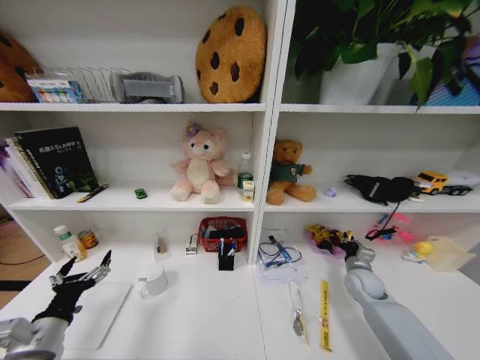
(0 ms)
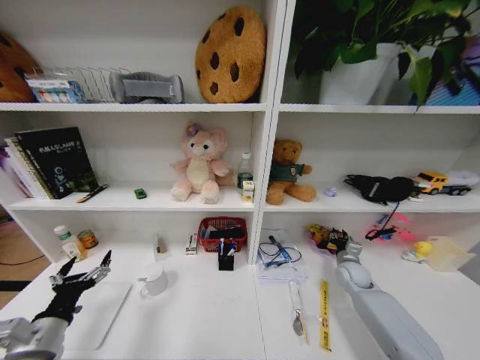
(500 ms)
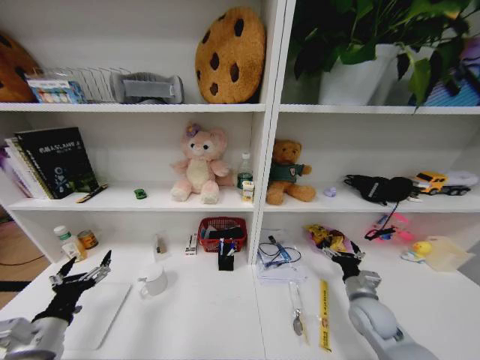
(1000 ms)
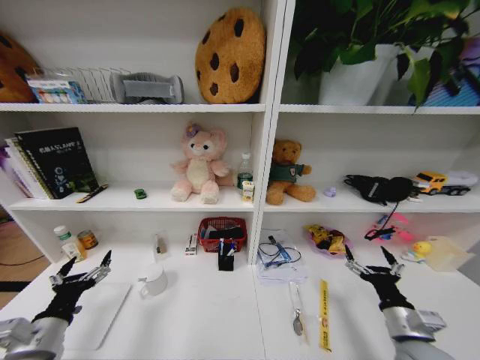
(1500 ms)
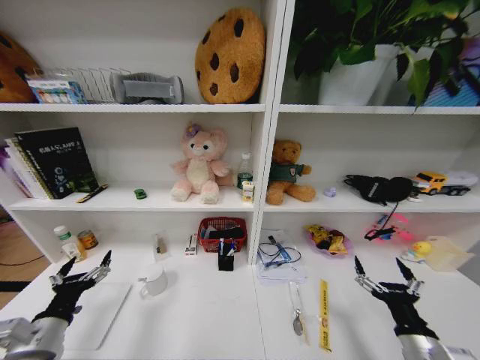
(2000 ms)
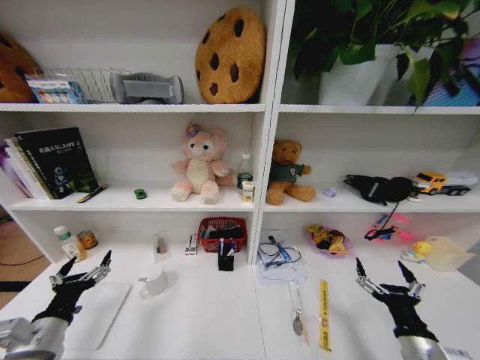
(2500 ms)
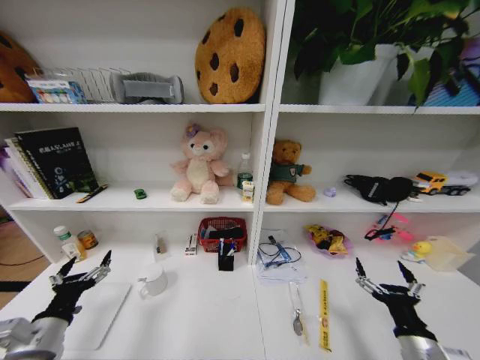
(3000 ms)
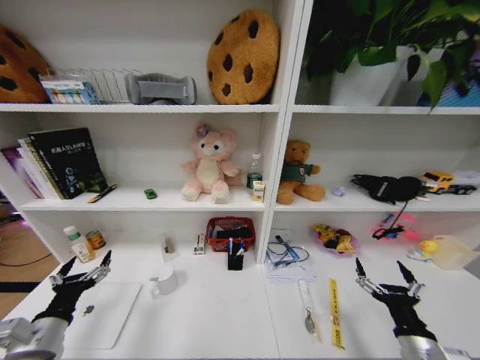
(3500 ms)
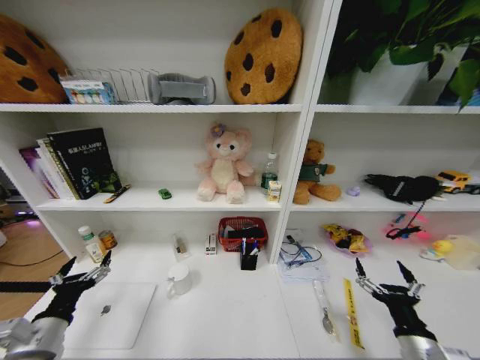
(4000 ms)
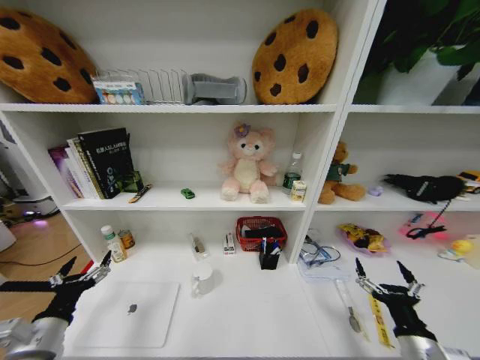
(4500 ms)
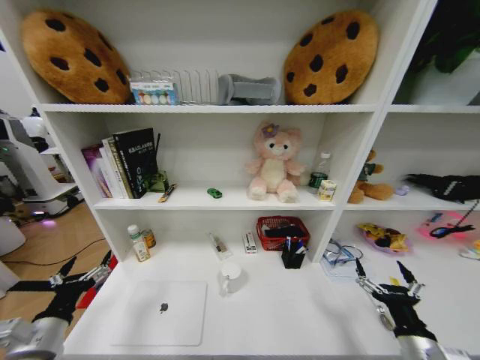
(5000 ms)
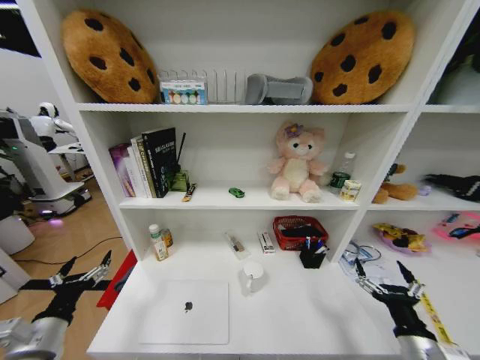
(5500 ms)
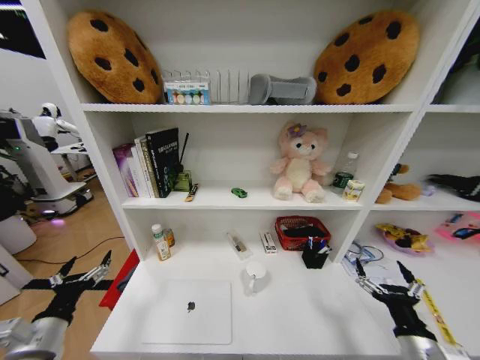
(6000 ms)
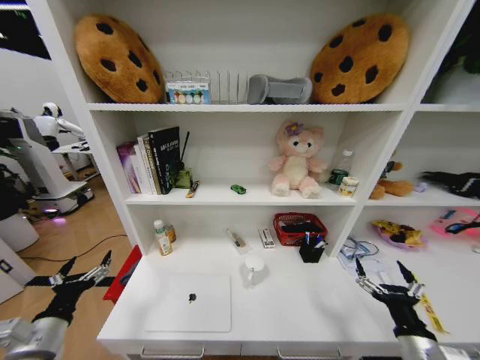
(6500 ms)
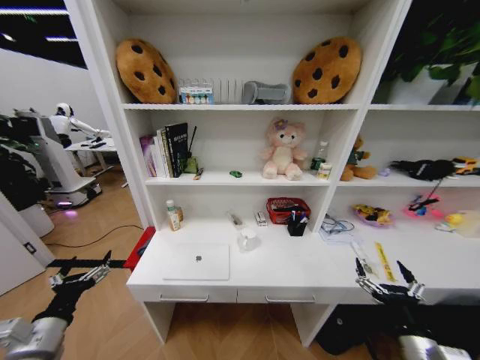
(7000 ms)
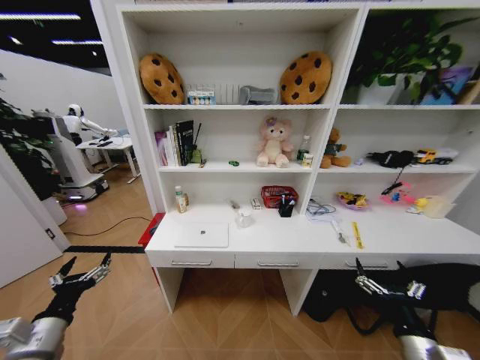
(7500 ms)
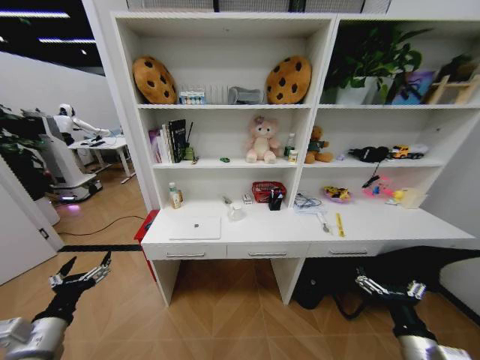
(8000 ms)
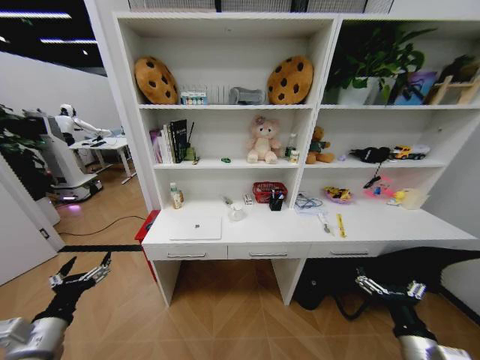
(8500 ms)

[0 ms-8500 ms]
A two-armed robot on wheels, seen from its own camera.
Task of the whole recording: Organize the objects on the table.
0 ms to 2000 ms: The right gripper goes roughly 25 cm backward, and opens up.
